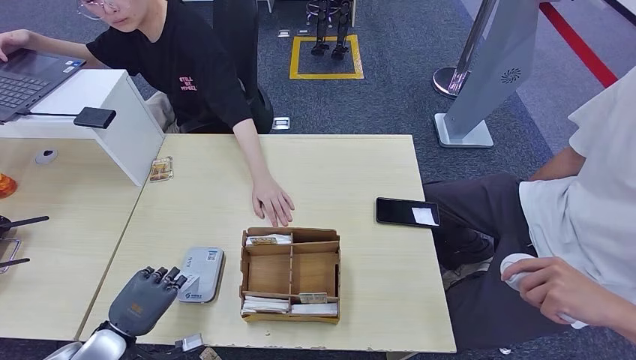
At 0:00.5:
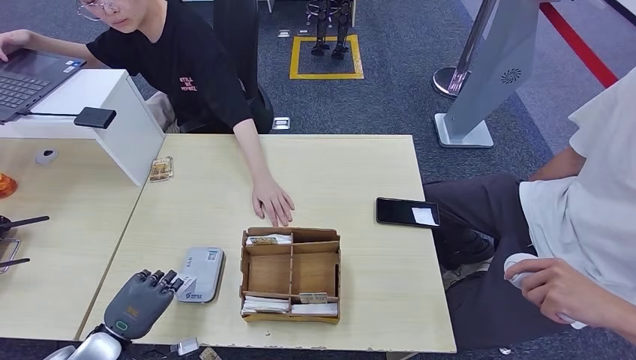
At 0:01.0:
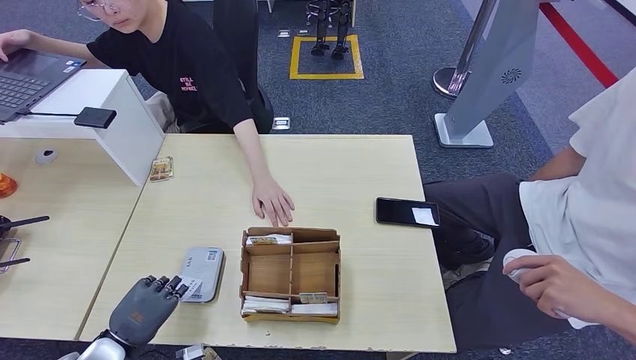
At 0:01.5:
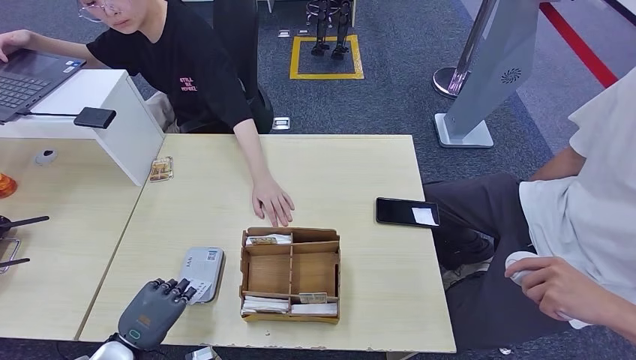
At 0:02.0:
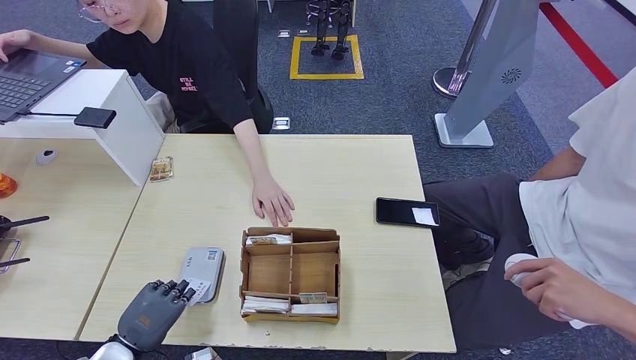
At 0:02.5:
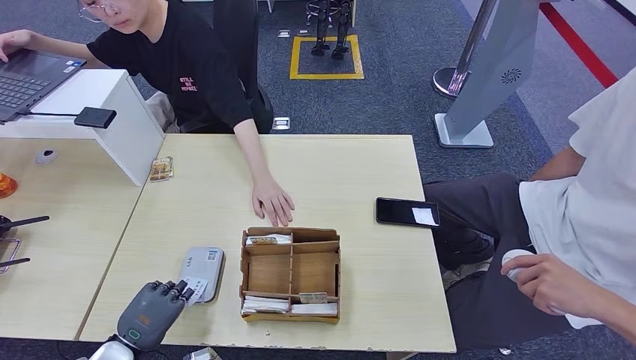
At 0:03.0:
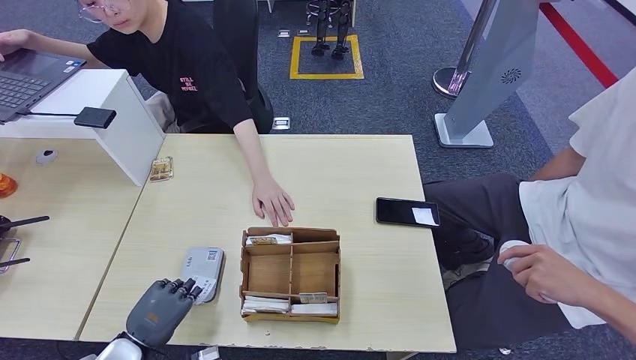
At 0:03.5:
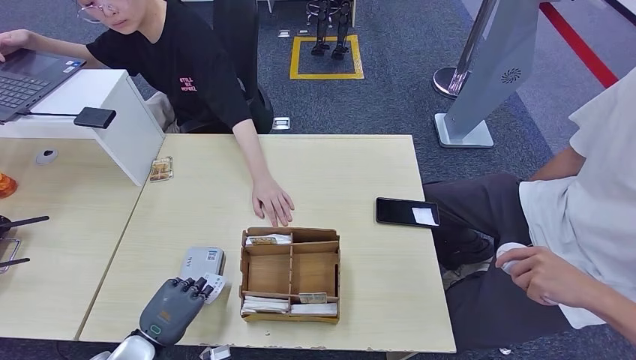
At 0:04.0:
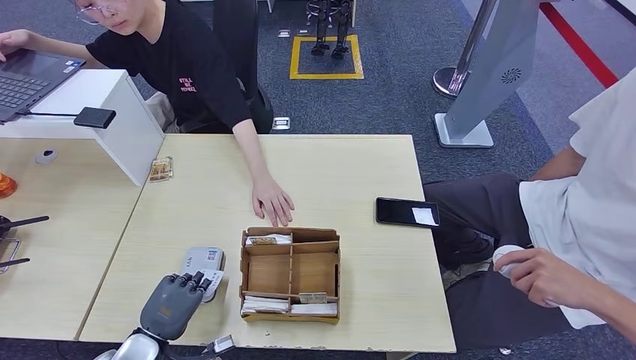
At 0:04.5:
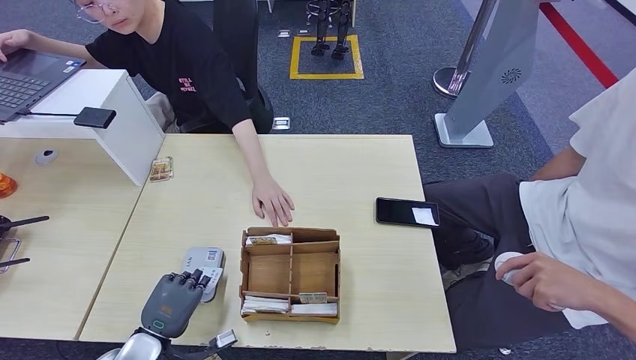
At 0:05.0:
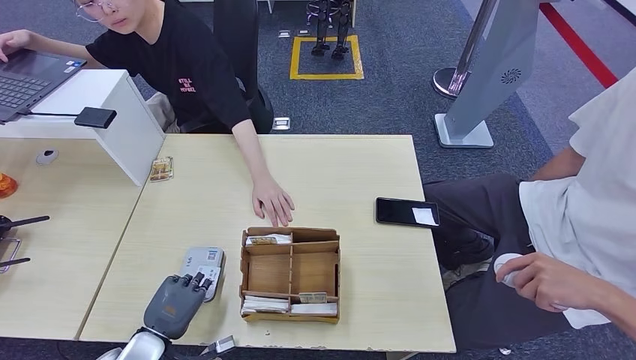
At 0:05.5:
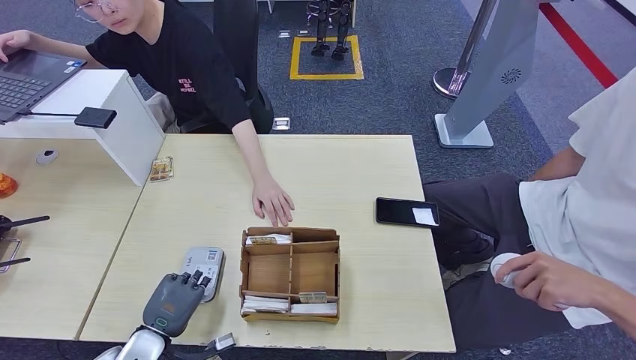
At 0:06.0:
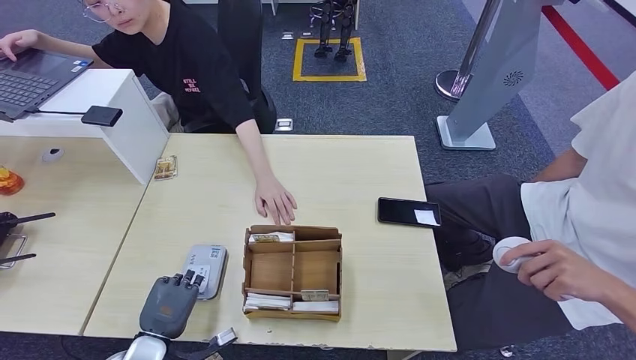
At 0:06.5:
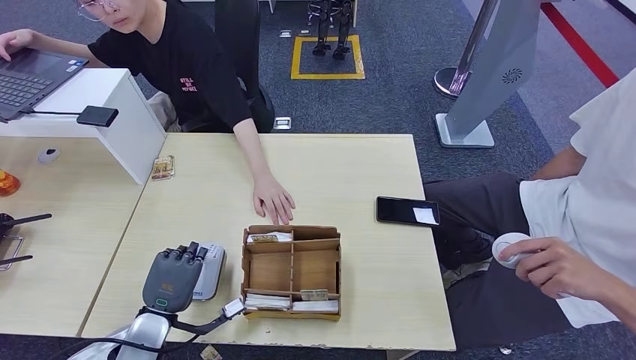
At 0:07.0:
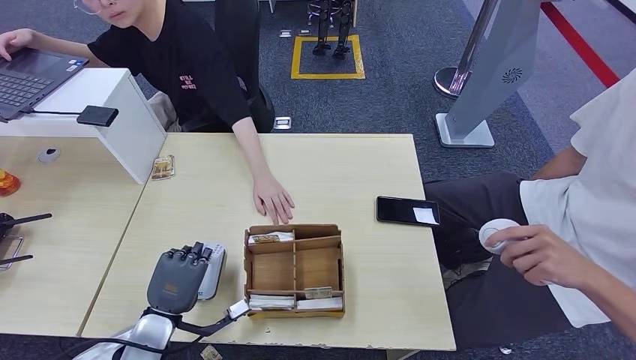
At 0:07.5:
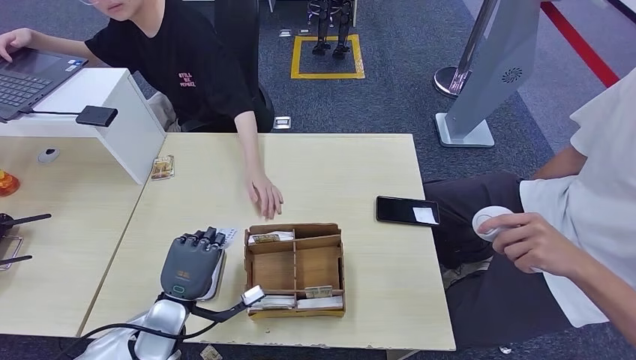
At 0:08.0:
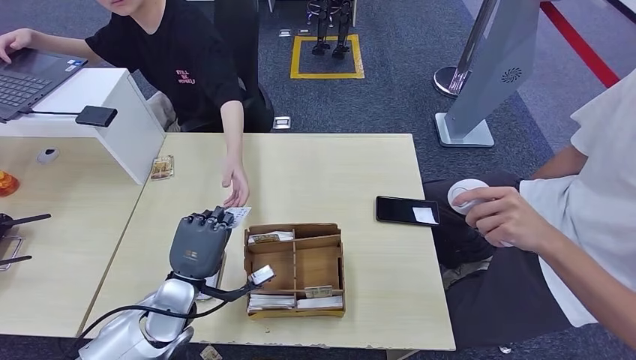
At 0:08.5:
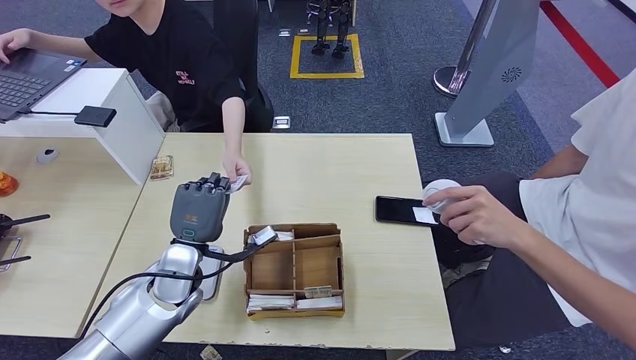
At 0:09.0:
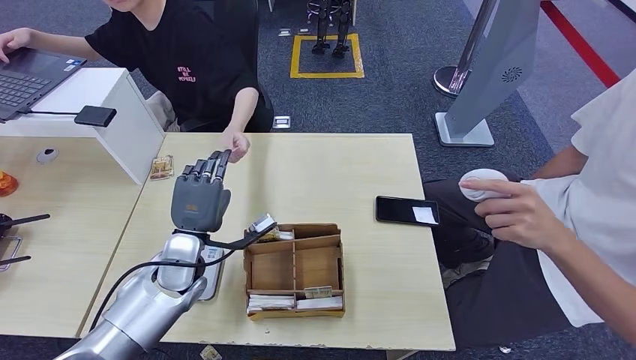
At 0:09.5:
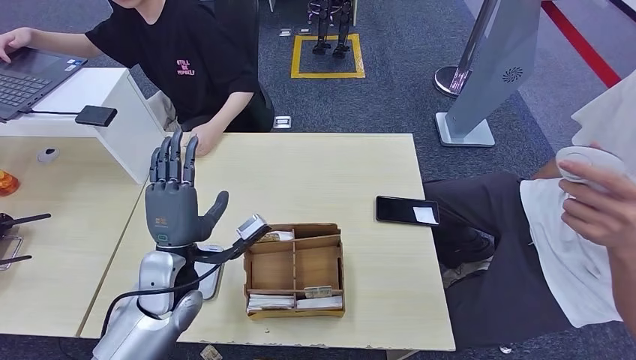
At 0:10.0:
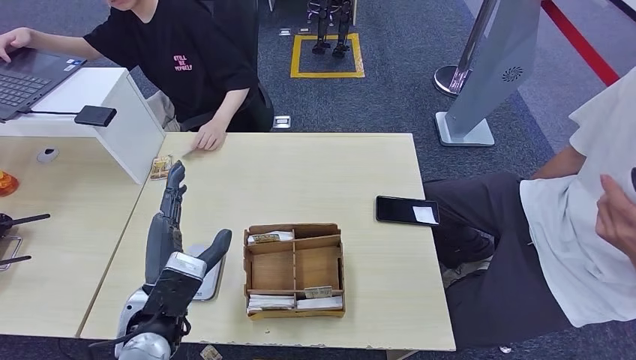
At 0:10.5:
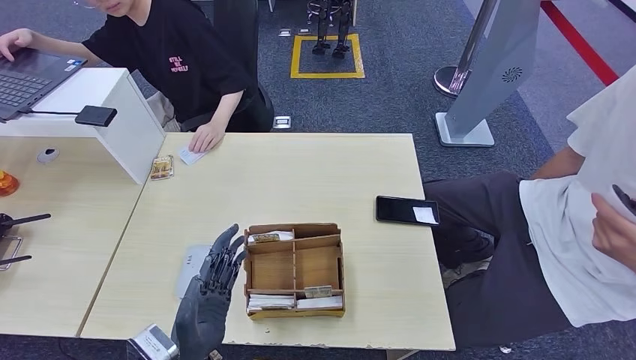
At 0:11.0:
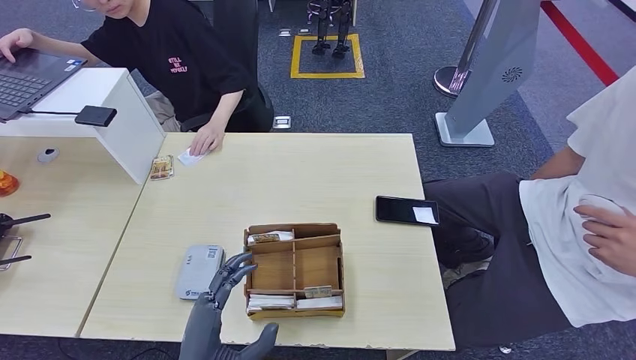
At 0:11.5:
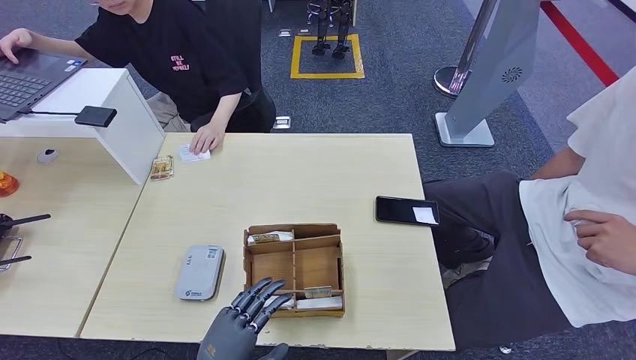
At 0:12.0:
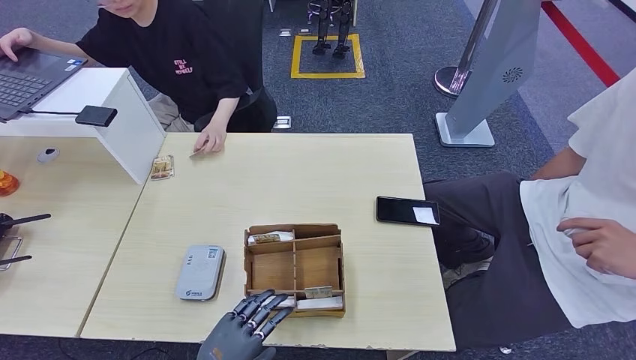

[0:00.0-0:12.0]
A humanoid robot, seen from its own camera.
Step, 0:00.0 to 0:02.0: Place the ID card on the card reader.
Step, 0:02.5 to 0:08.5: Hand the ID card to the person.
0:00.0 to 0:02.0: There are only small adjustments of the hands.
0:02.0 to 0:06.0: The hands move only a little.
0:08.0 to 0:10.0: The left hand shifts some 10 cm upward.
0:10.0 to 0:12.0: The left hand travels backward and downward by approximately 15 cm.

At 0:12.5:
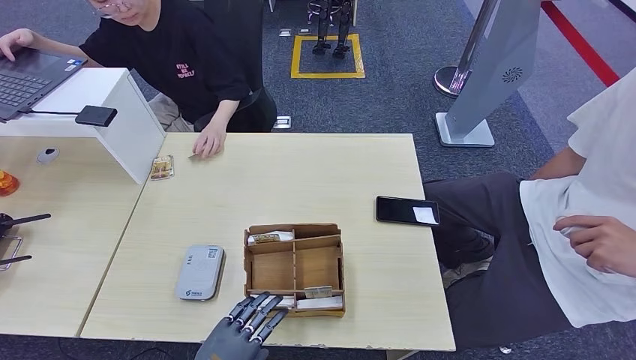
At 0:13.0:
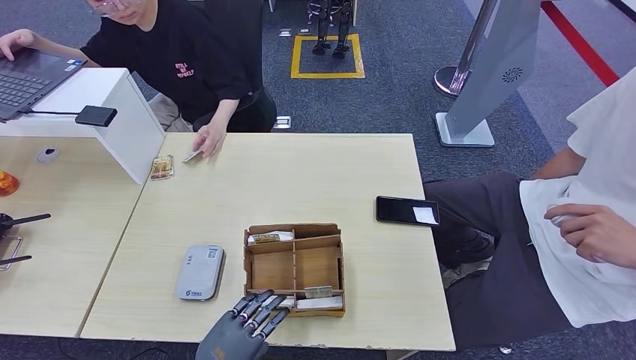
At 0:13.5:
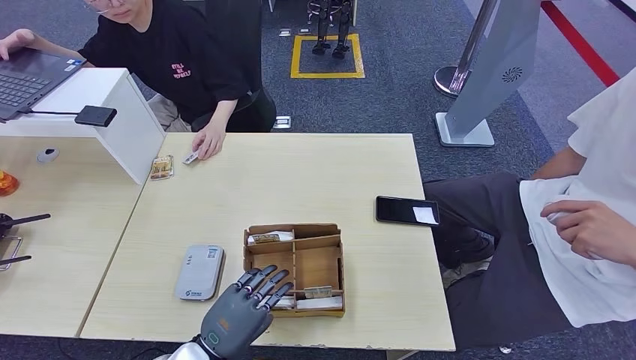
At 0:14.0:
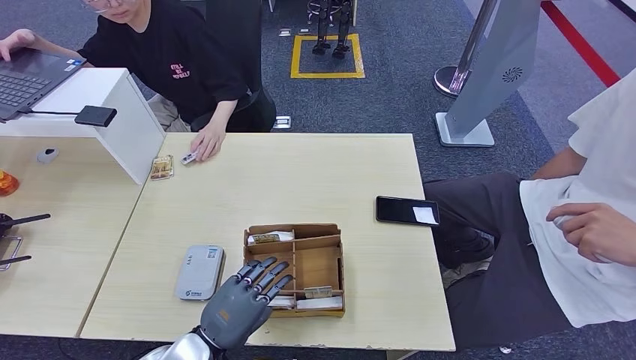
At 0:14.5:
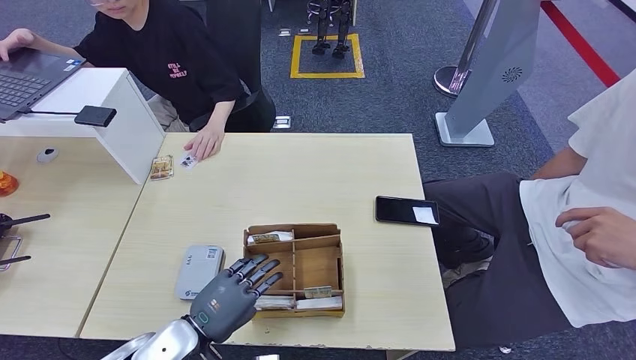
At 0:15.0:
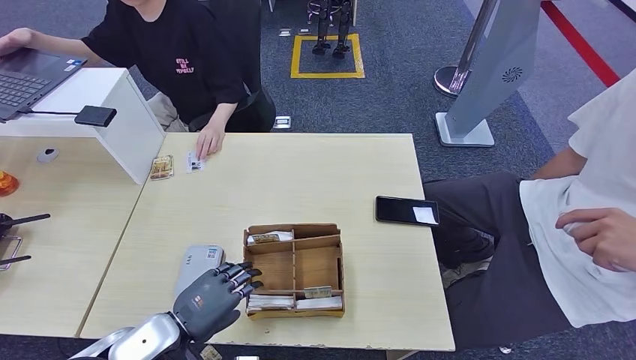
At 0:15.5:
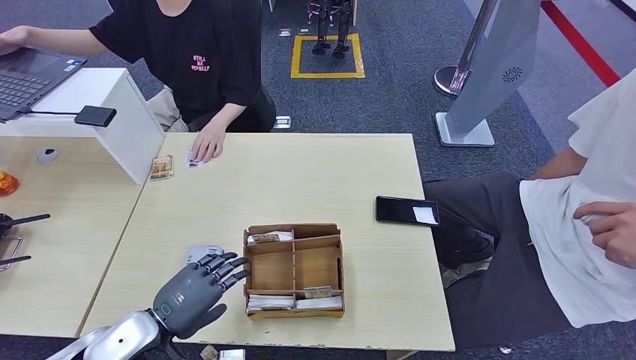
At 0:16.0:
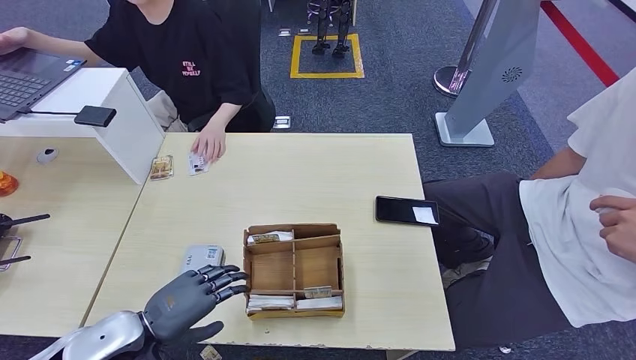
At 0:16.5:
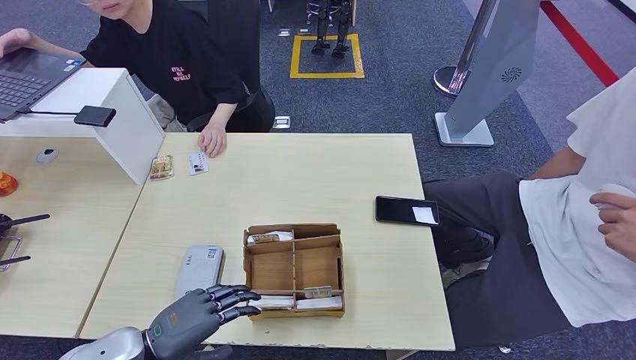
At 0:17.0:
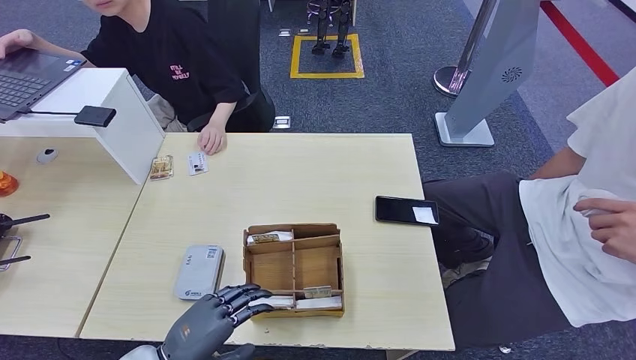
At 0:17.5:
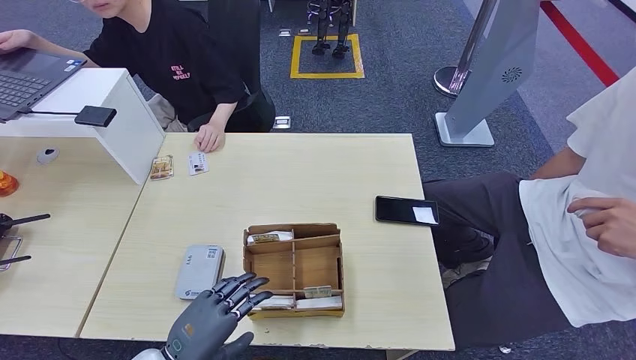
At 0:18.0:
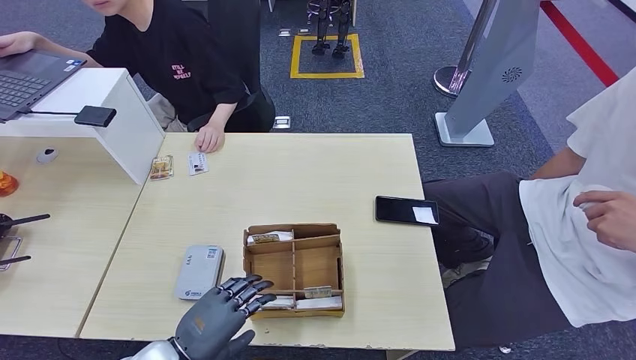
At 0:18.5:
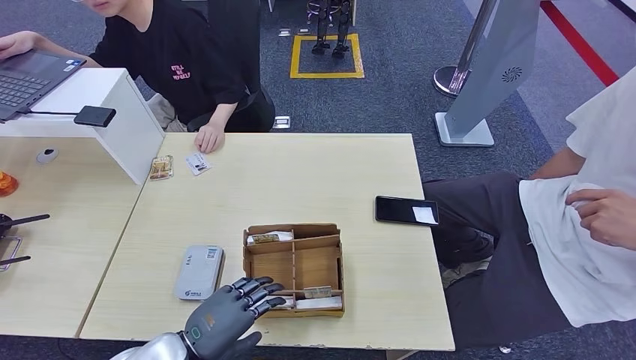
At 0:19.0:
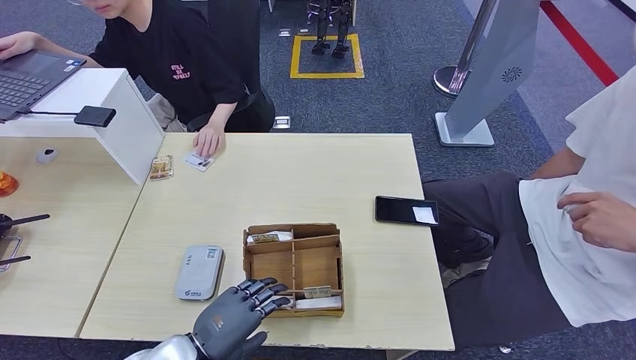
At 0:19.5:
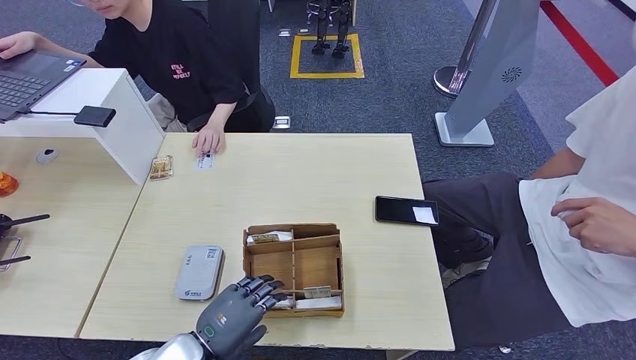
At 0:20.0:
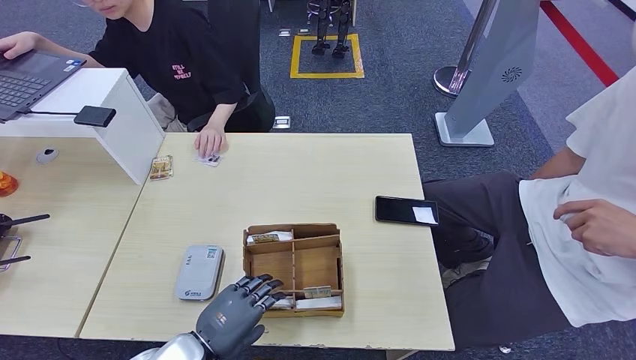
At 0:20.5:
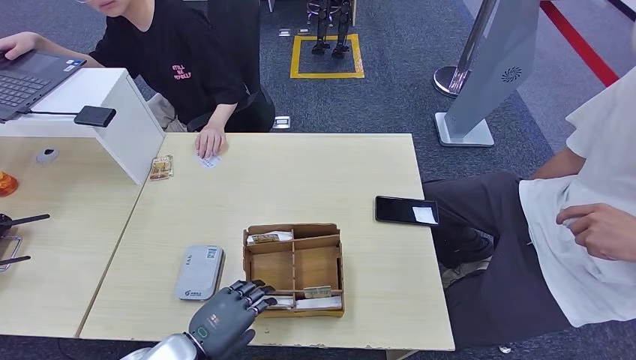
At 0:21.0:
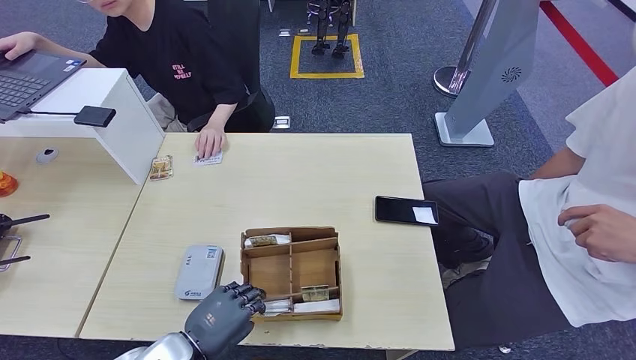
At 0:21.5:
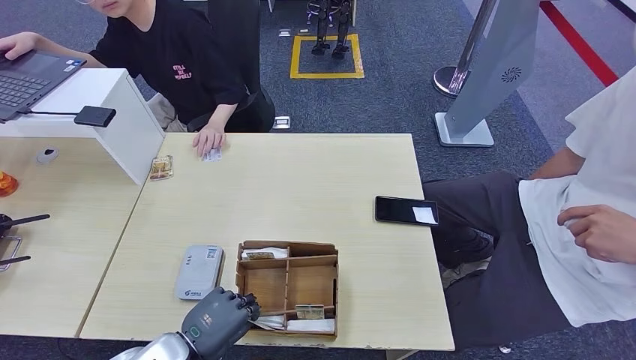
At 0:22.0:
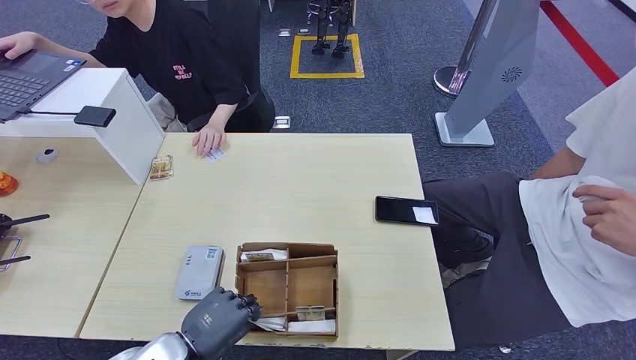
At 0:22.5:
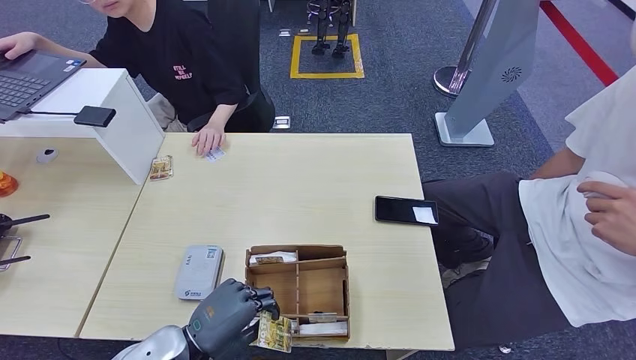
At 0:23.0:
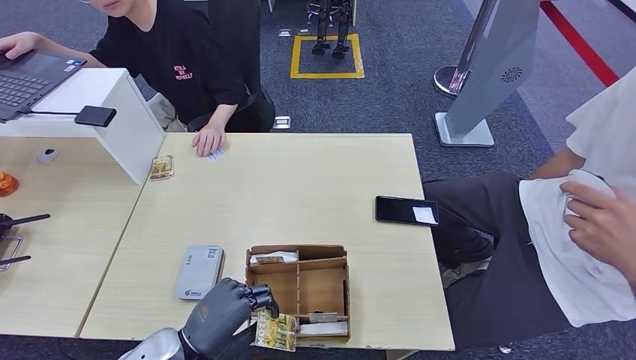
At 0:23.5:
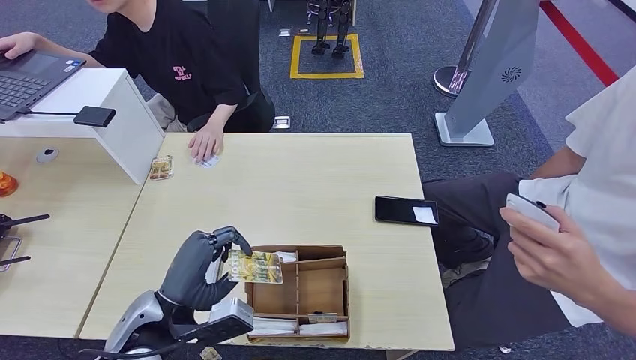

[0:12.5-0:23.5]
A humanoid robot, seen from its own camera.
Step, 0:12.5 to 0:22.5: Pick up the room key from the key card box.
0:12.5 to 0:14.5: The left hand moves forward, approximately 10 cm.
0:14.5 to 0:16.0: The left hand goes roughly 5 cm to the left.
0:16.0 to 0:18.0: The left hand heads to the right, covering some 5 cm.
0:18.0 to 0:21.5: The hands stay close to where they were, moving slightly.
0:21.5 to 0:23.5: The left hand heads upward, covering approximately 5 cm.